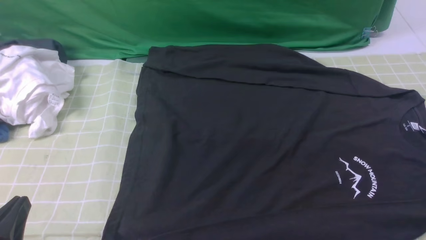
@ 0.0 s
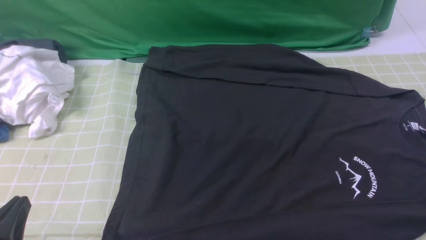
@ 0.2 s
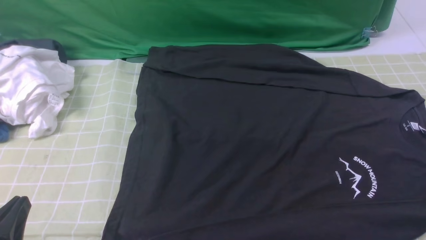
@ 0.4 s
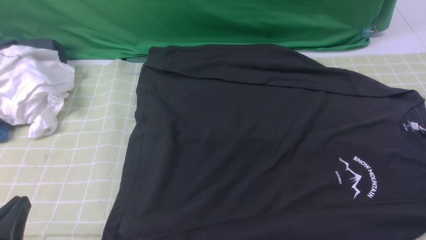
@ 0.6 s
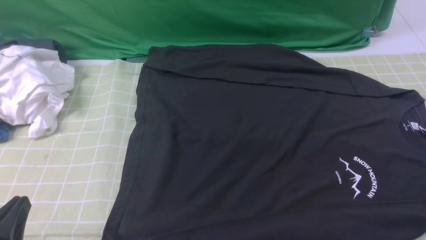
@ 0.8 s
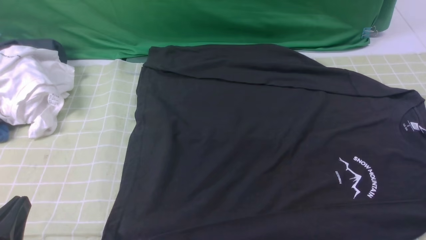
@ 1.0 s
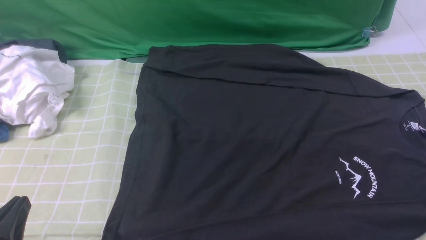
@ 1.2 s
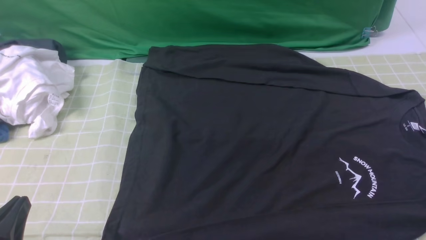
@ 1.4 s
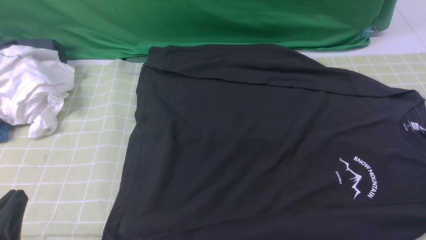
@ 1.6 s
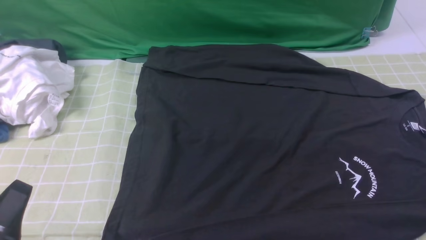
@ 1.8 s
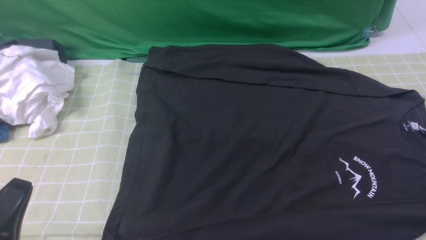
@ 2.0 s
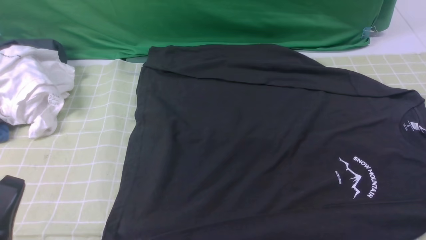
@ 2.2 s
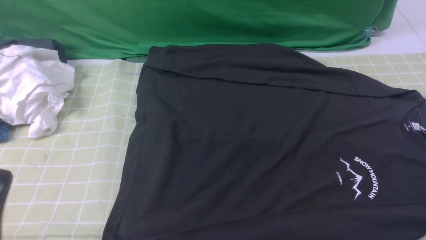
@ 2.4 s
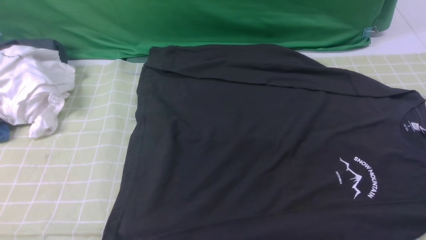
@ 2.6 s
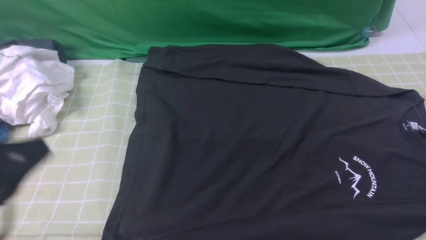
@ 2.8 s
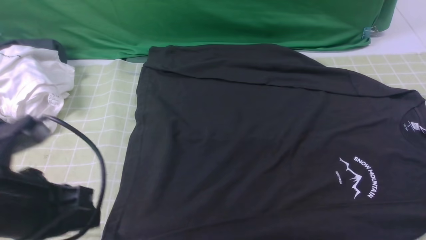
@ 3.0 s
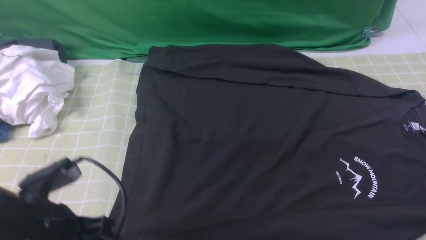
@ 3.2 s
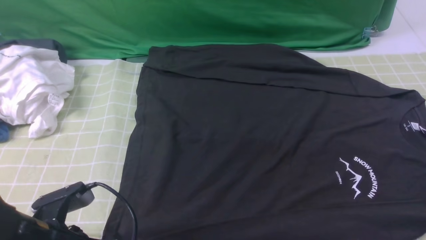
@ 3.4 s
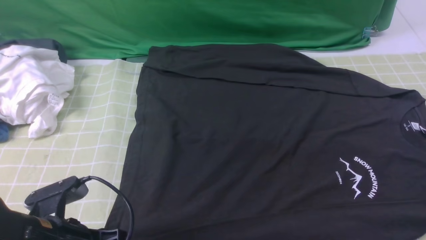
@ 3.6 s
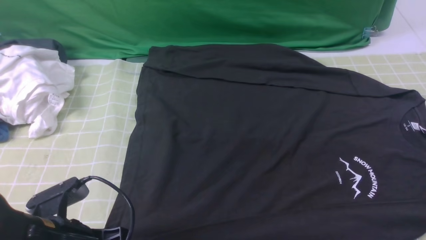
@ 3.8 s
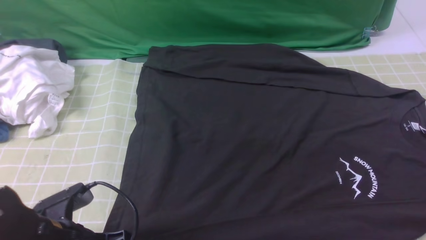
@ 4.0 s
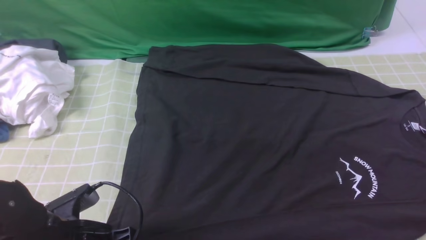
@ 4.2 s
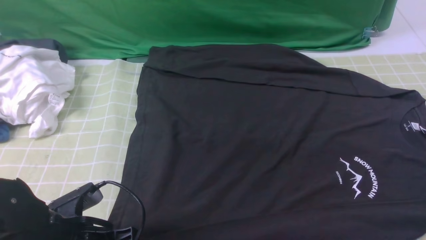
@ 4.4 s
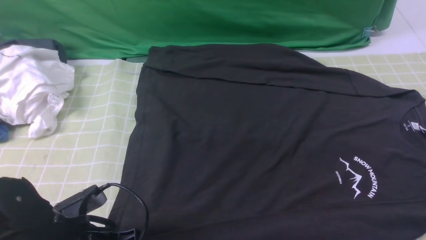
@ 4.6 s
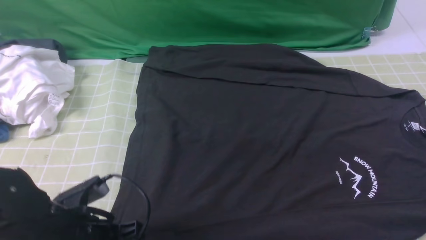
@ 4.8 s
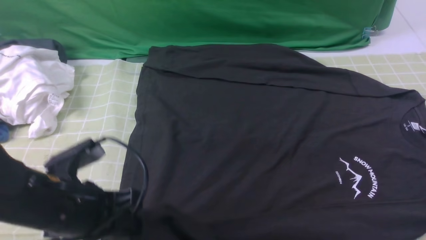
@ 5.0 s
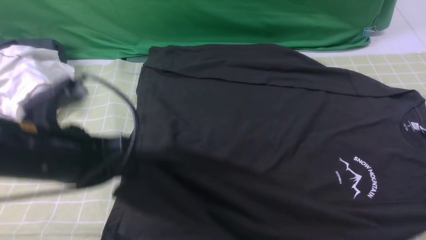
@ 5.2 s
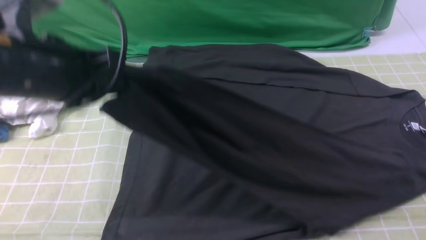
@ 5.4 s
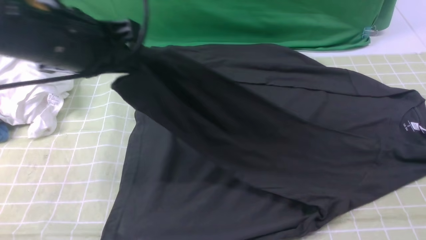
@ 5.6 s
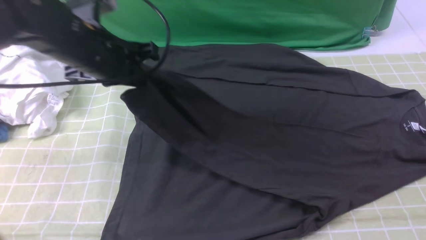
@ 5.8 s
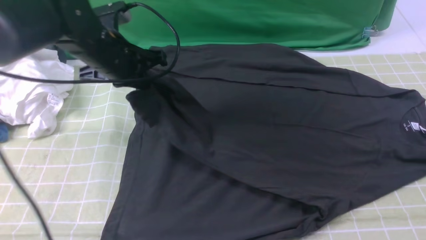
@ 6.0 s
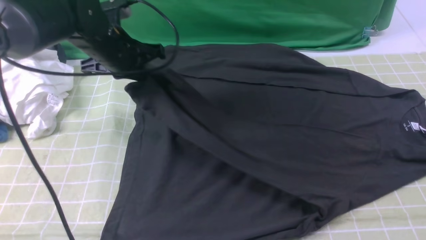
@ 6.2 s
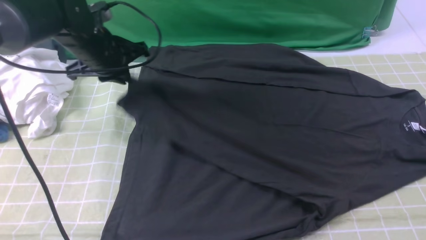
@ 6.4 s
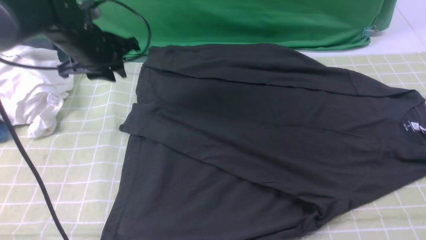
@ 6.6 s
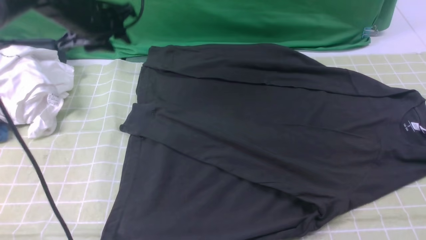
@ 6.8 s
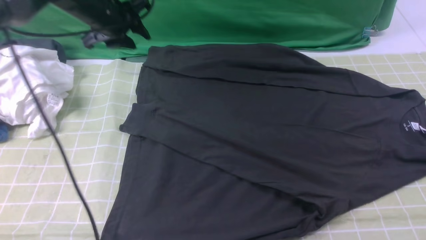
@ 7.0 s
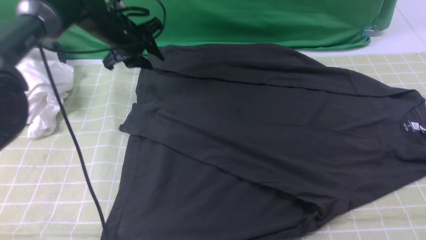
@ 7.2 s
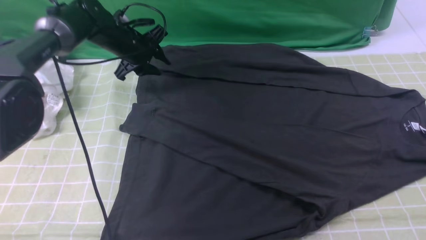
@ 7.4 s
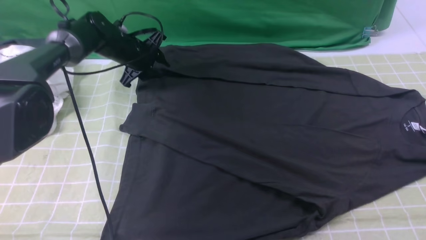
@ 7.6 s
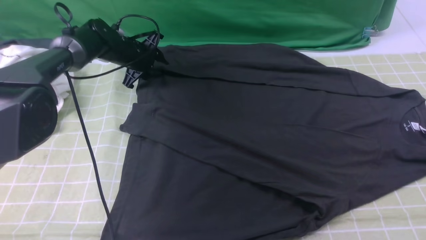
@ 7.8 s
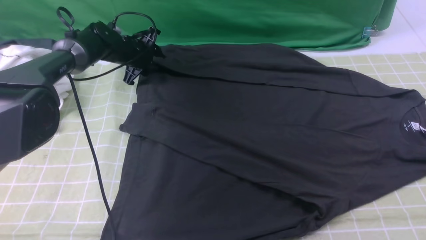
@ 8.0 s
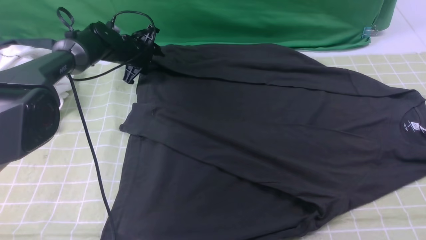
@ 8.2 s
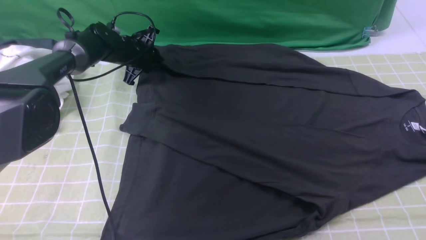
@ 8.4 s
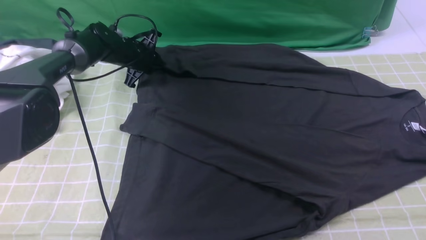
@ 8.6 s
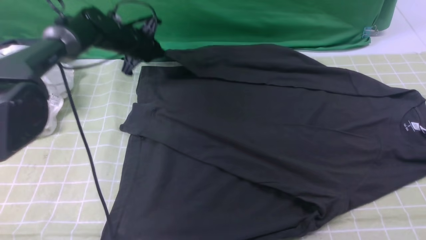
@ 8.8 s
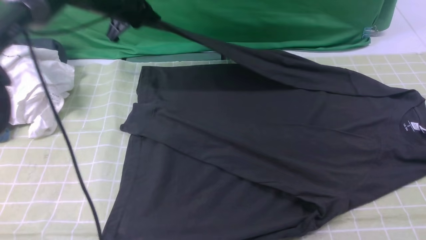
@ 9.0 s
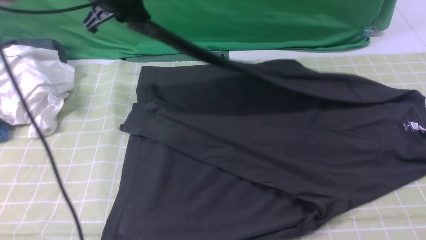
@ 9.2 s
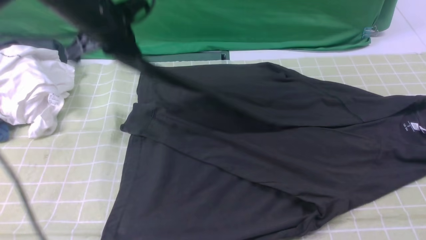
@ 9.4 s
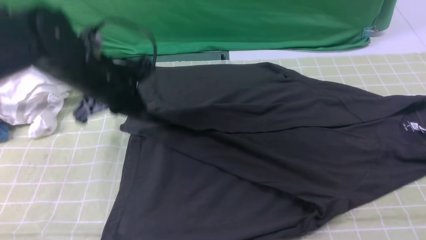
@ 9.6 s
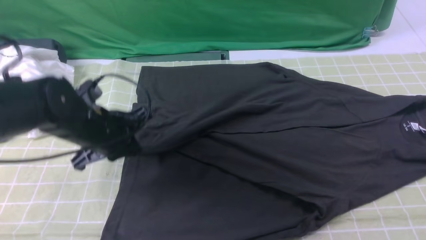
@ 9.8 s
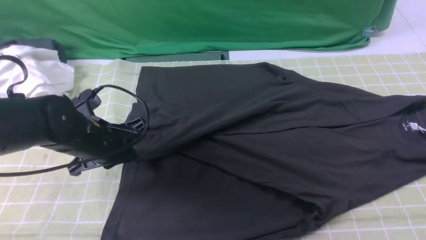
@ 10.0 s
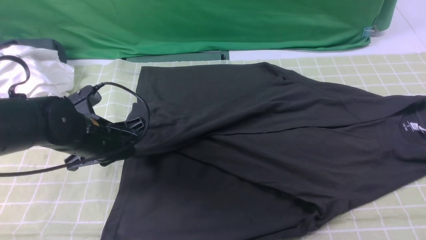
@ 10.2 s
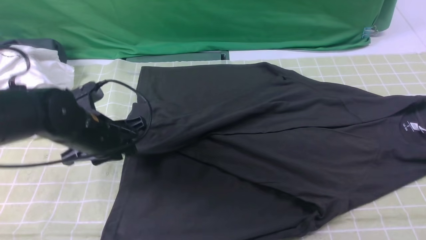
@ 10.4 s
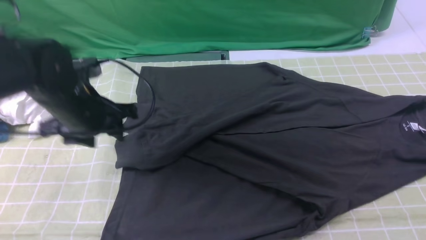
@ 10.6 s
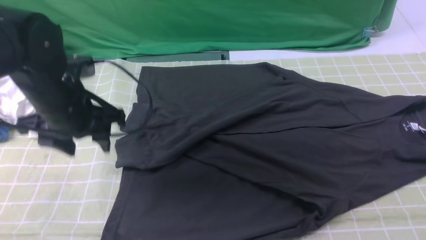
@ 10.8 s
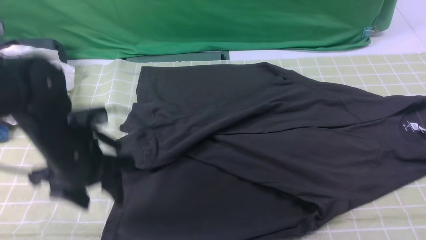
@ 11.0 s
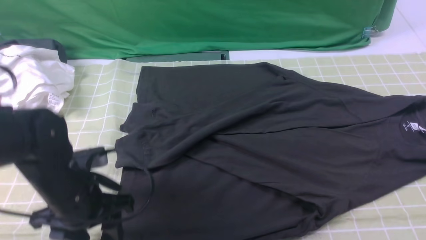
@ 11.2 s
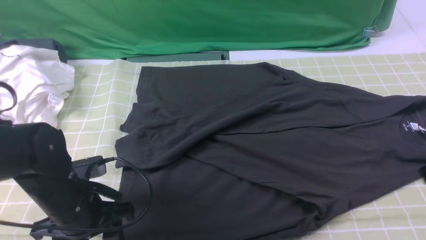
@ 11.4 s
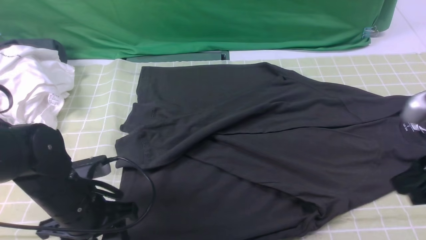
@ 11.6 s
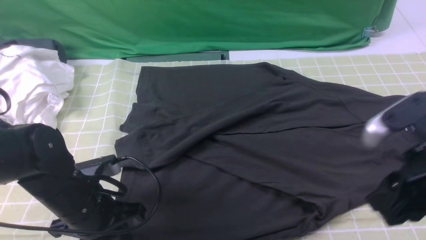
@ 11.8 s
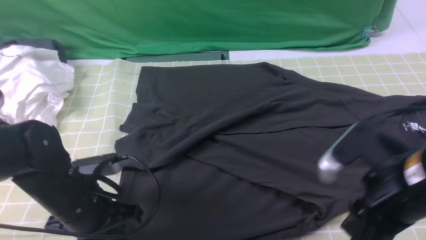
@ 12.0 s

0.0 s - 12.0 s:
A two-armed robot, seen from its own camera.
Step, 0.0 s - 4.6 s: use the left arm to clamp the cuff closest to it.
Step, 4.8 s - 6.4 s: use the left arm to drag and place the cuff at the centered position on the left edge of the fabric.
Step, 6.8 s - 8.4 s: use the left arm to clamp the cuff farthest from it.
Step, 8.8 s - 10.6 s: use the left arm to drag and drop the cuff onto the cuff closest to the left arm.
1.6 s - 3.0 s: The left gripper goes about 10 cm forward and upward.
3.0 s - 4.4 s: The left gripper goes about 10 cm downward, and opens up.
4.4 s - 6.0 s: The left gripper is displaced forward and upward by some 25 cm, and closes its fingers.
6.0 s - 7.6 s: The left gripper shifts about 20 cm forward and downward, and opens.
7.6 s - 9.0 s: The left gripper travels upward by about 10 cm, and closes up.
9.0 s - 10.4 s: The left gripper goes approximately 20 cm backward, and opens up.
10.4 s - 12.0 s: The right gripper goes approximately 15 cm to the left and downward; the left gripper travels backward by roughly 10 cm, and closes its fingers.

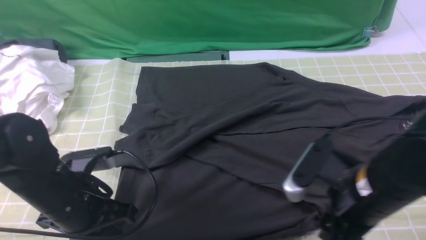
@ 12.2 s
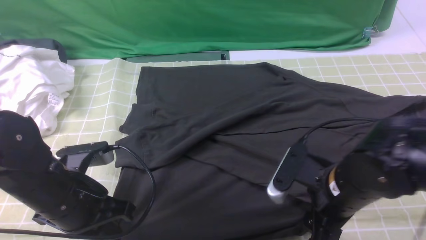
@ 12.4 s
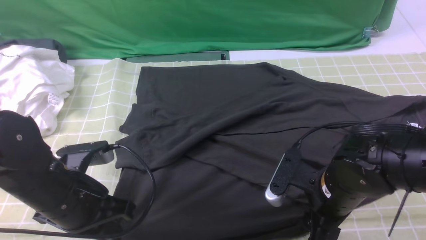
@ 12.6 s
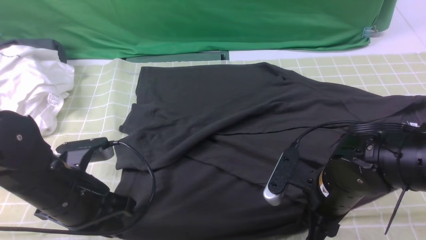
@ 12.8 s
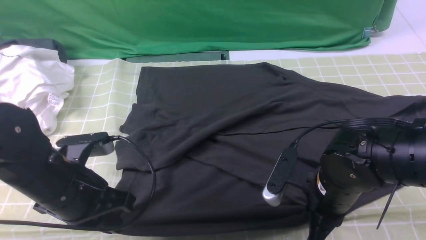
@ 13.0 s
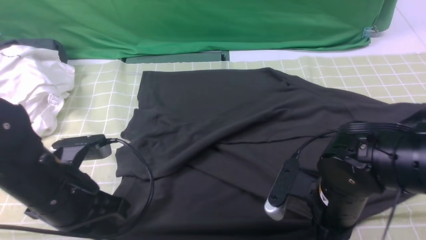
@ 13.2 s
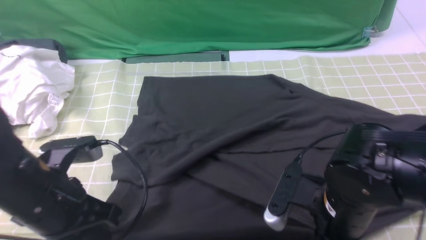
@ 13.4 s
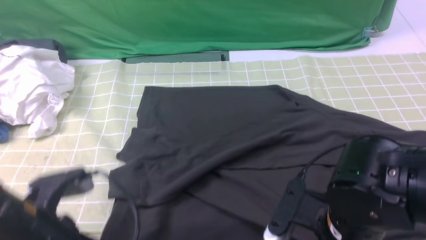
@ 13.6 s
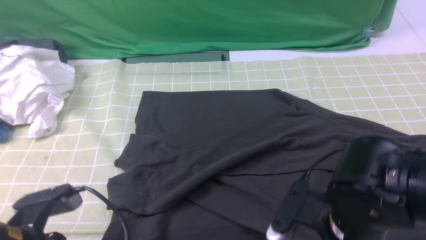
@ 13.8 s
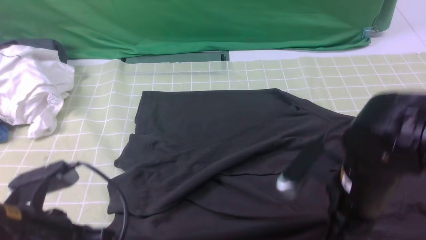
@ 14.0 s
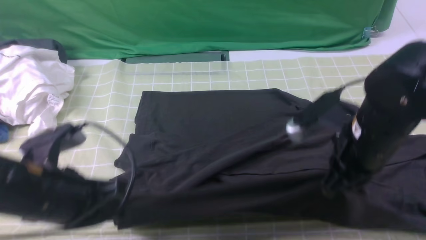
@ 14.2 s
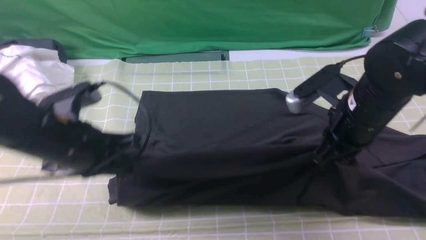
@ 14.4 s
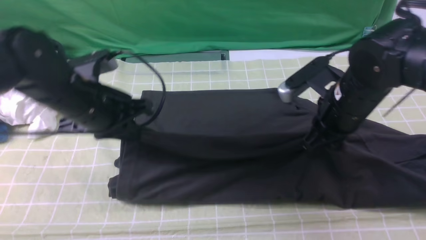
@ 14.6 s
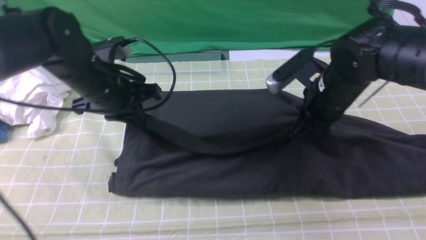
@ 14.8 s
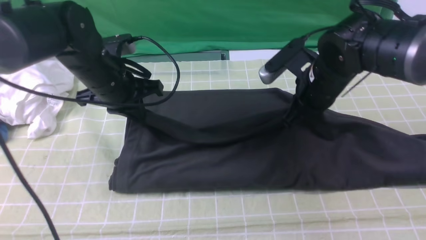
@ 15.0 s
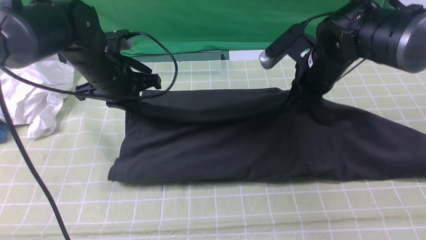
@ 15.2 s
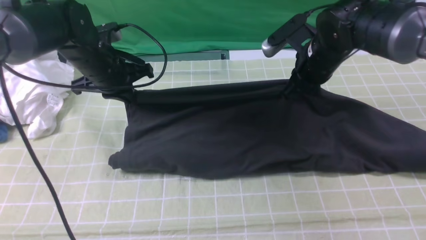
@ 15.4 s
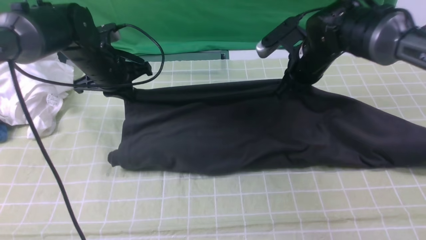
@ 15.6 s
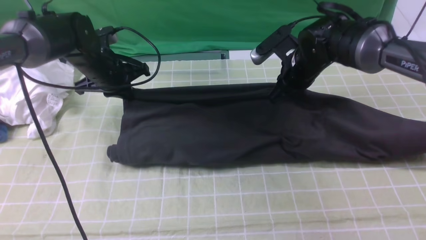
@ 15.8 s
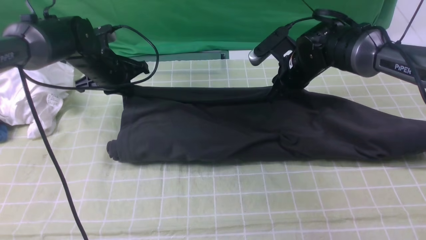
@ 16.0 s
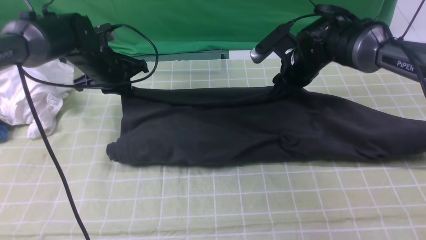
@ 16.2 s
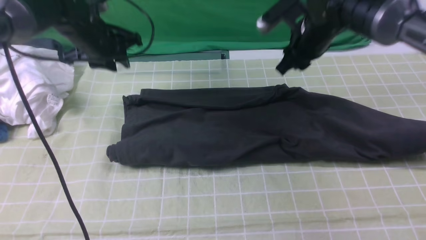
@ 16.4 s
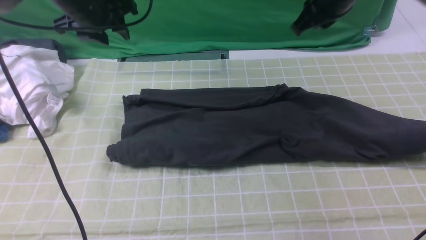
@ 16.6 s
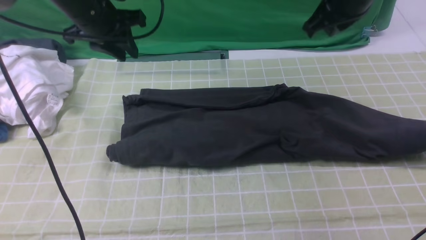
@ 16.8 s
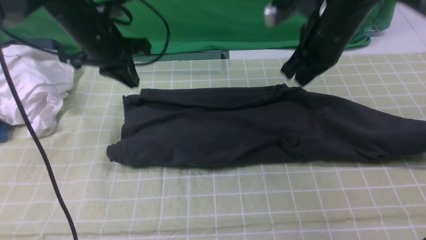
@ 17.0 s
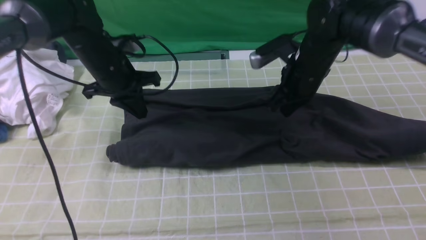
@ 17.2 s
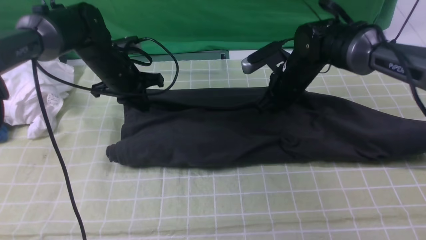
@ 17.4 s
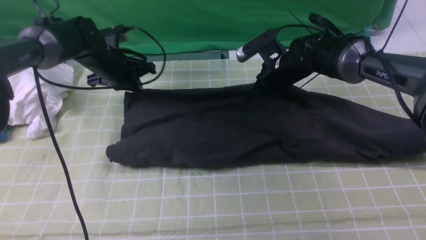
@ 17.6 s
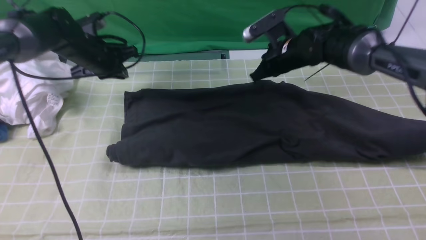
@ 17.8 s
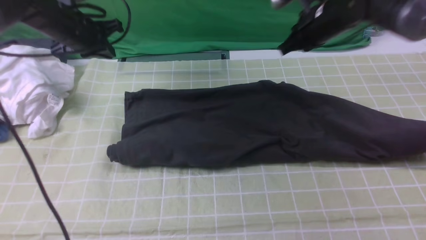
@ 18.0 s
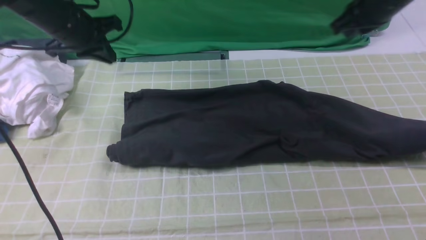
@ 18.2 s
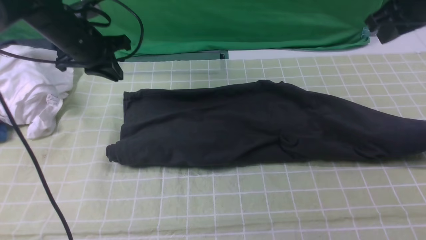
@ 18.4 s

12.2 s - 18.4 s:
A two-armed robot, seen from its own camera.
Step, 13.2 s - 17.6 s: use both arms to drag the lower edge of the fabric forward and fold it over the upper edge.
12.2 s - 13.8 s: The right gripper closes its fingers; the left gripper travels backward by approximately 10 cm.
13.8 s - 15.4 s: The grippers both shift forward by about 25 cm.
15.4 s - 16.8 s: The right gripper travels upward by roughly 10 cm, and opens, then closes again. The left gripper heads upward, covering approximately 5 cm.
16.8 s - 18.4 s: The right gripper travels to the right by about 10 cm, and moves roughly 15 cm downward and comes back.
